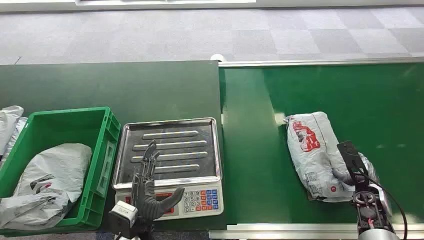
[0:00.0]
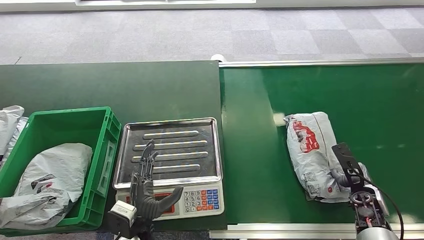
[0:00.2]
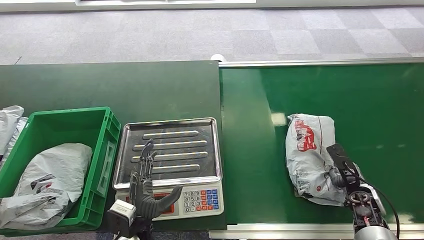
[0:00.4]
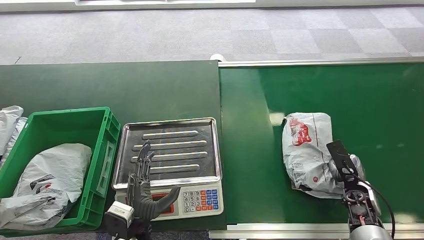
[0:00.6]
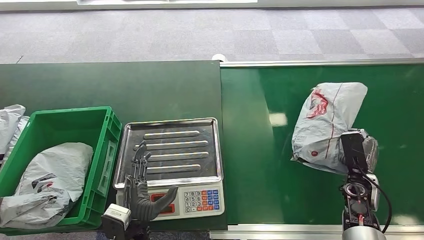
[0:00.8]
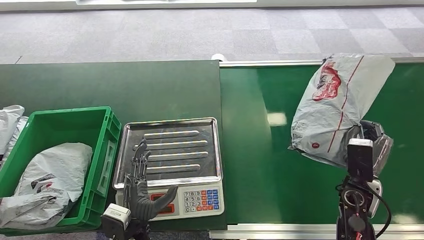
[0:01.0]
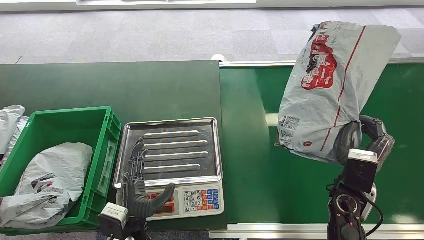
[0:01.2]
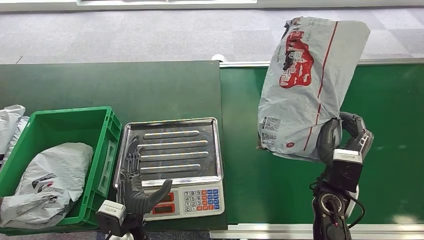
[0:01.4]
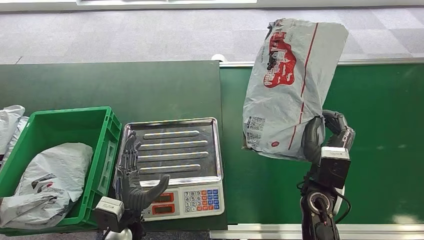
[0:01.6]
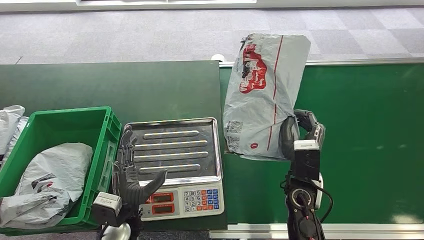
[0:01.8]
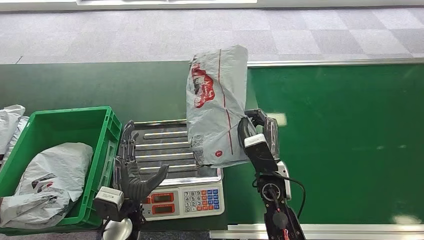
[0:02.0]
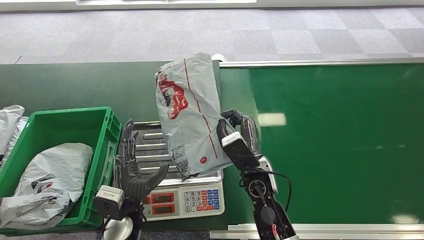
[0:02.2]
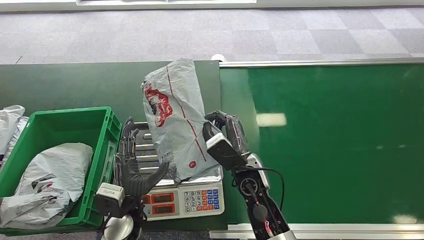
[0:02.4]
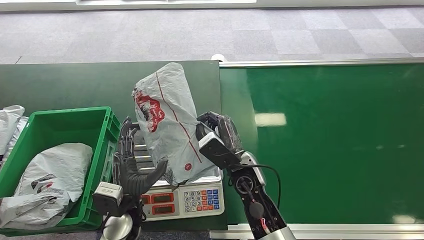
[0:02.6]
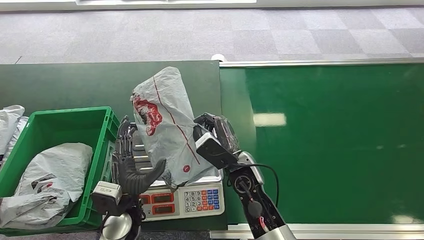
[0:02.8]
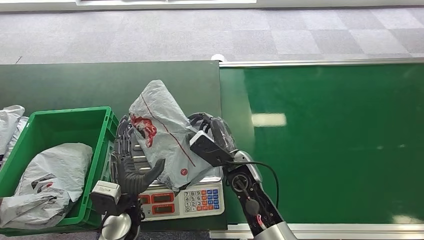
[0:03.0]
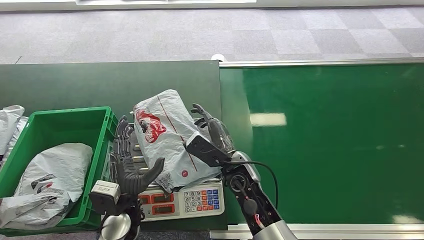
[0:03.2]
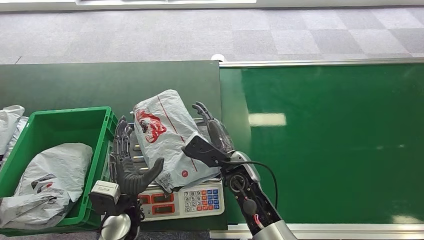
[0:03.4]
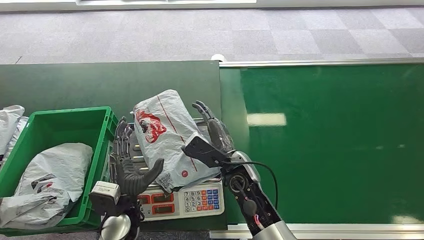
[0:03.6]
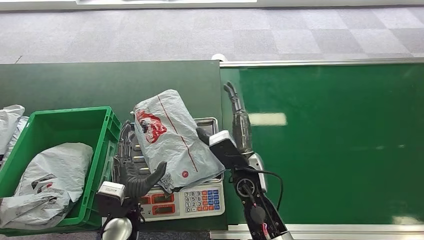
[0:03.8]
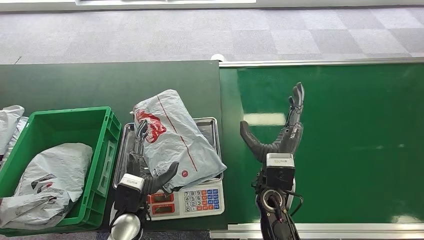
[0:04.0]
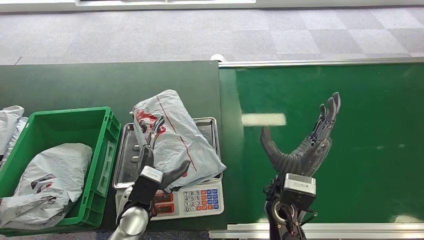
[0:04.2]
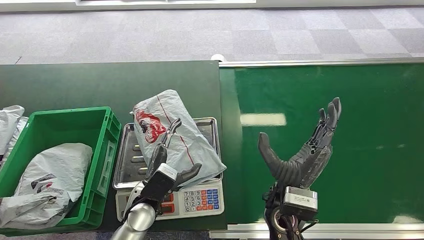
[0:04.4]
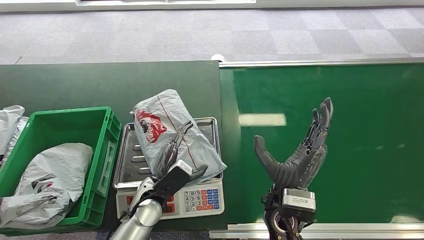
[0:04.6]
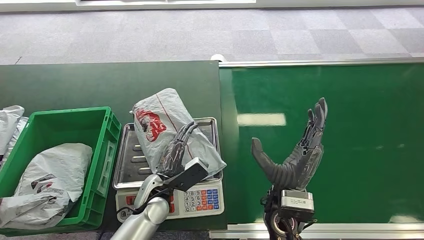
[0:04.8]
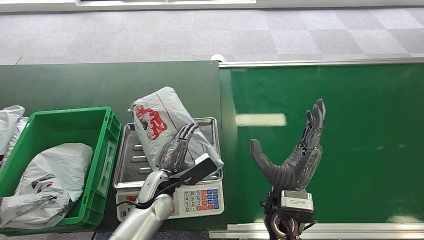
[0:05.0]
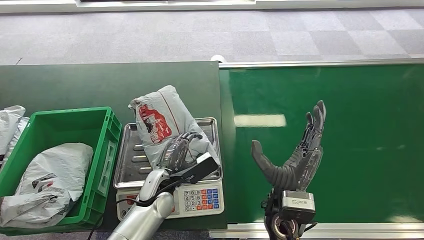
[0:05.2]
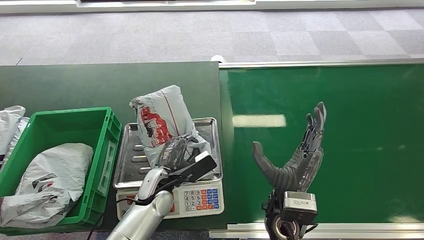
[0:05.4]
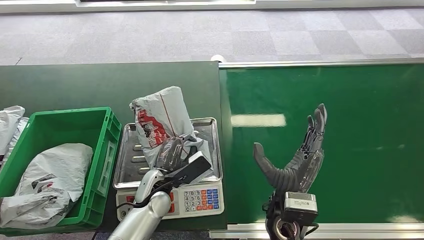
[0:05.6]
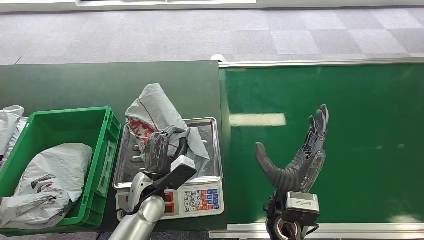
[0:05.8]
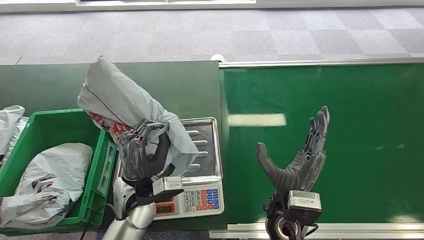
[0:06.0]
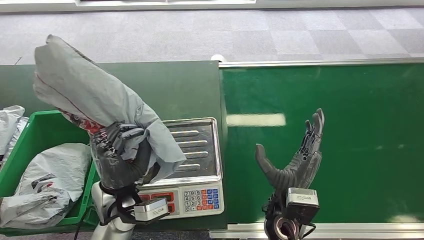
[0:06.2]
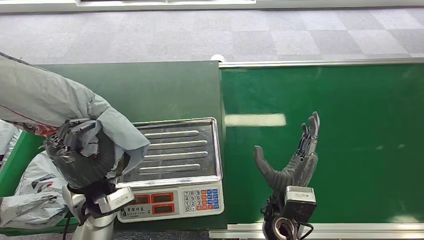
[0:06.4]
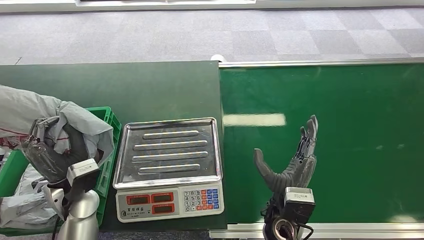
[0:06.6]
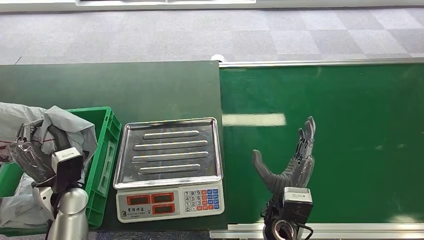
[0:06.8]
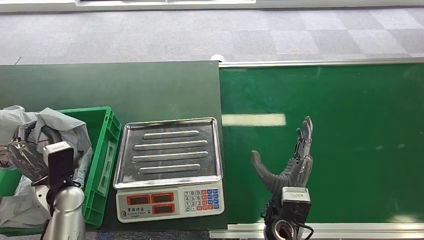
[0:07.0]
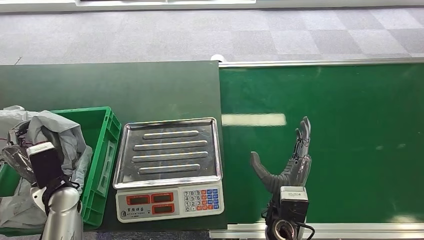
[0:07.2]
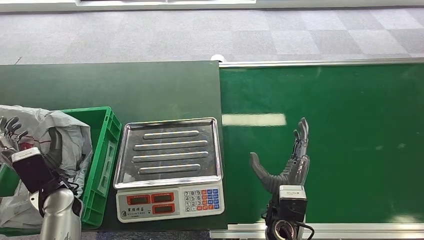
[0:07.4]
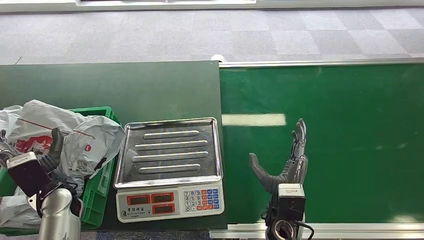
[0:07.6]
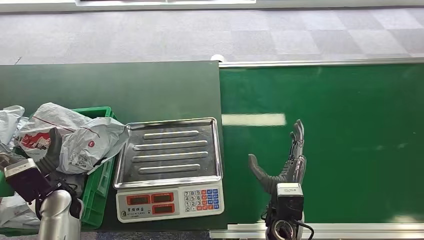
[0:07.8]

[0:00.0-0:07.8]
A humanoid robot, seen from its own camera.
Step, 0:00.0 to 0:01.0: Pick up the package from the conveyor belt.
Step, 0:02.0 to 0:04.0: Place the package onto the inbound machine.
Step, 0:05.4 to 0:06.2: Pick up the package from the inbound machine.
Step, 0:06.8 to 0:07.6: Place the package into the parcel locker.
0:03.2 to 0:04.6: The left hand changes place by about 5 cm. Meanwhile the right hand heads backward and to the right, covering about 10 cm.
0:04.6 to 0:06.2: The left hand shifts some 10 cm upward.

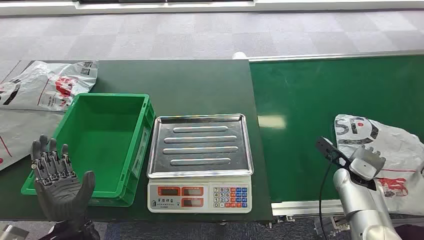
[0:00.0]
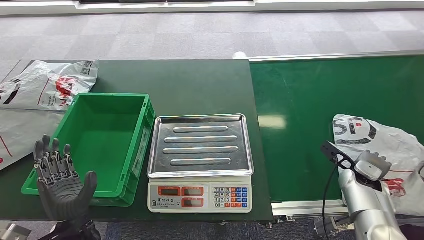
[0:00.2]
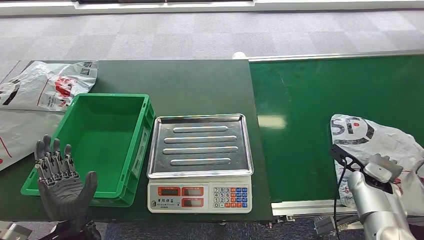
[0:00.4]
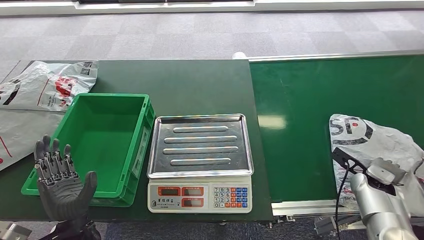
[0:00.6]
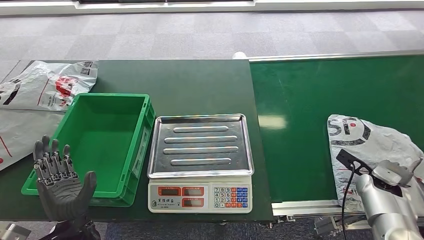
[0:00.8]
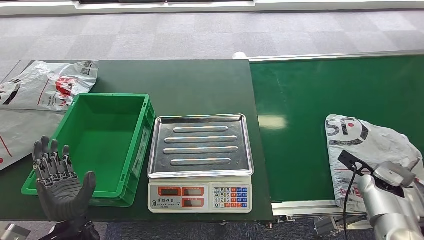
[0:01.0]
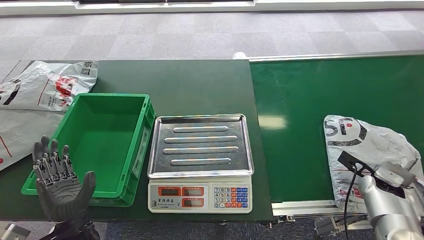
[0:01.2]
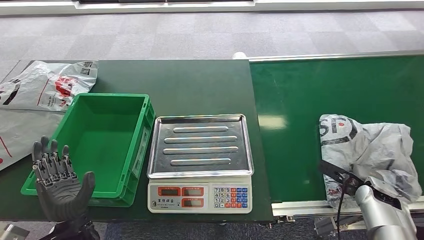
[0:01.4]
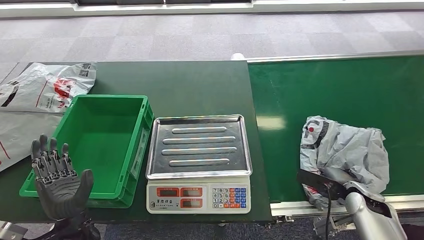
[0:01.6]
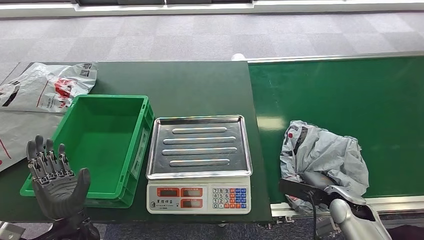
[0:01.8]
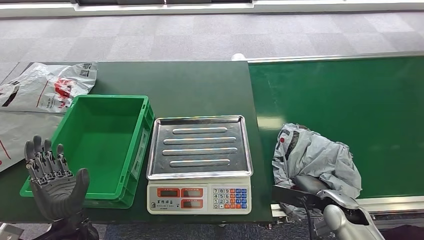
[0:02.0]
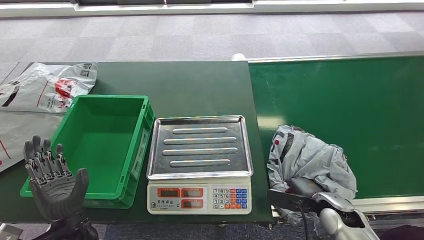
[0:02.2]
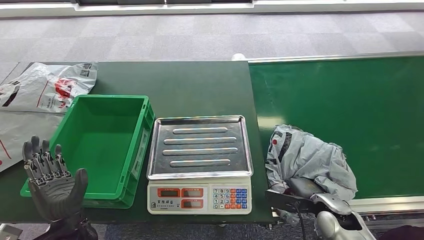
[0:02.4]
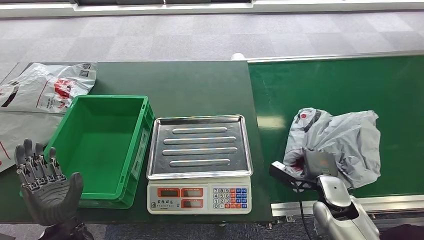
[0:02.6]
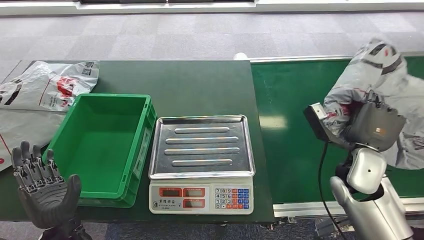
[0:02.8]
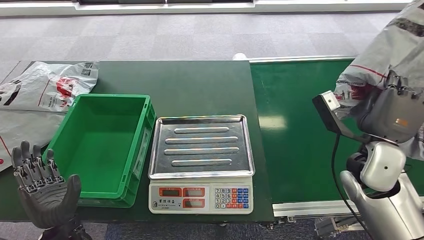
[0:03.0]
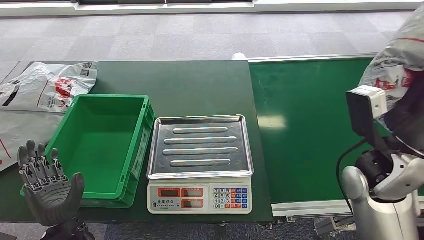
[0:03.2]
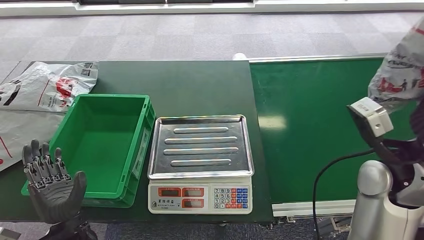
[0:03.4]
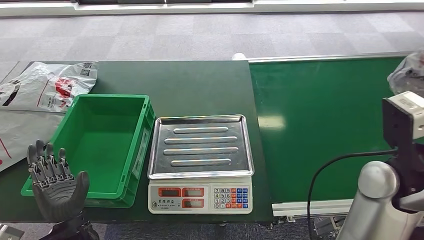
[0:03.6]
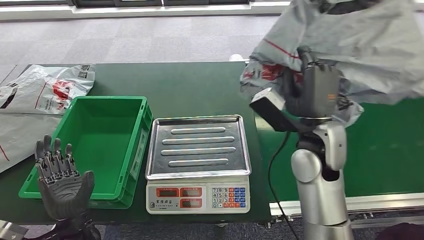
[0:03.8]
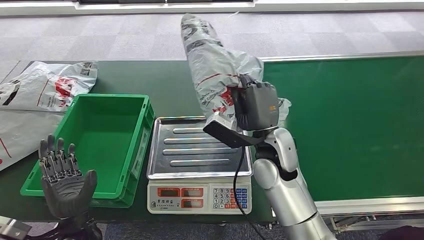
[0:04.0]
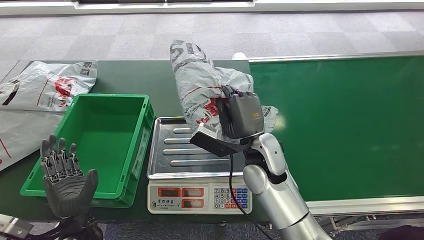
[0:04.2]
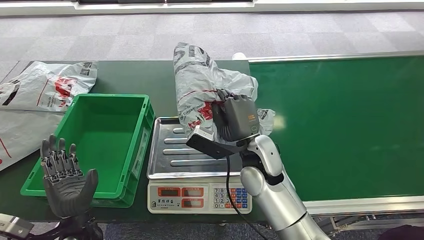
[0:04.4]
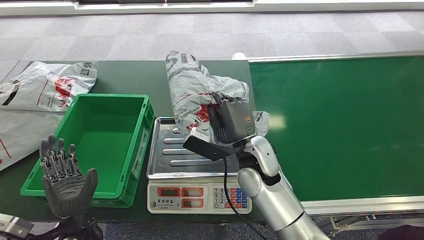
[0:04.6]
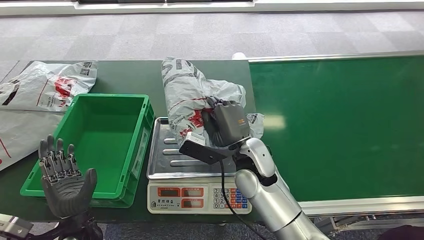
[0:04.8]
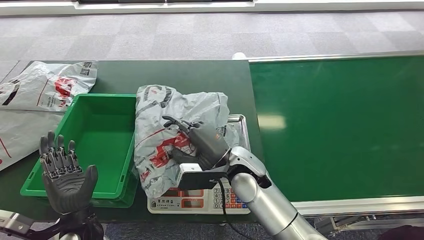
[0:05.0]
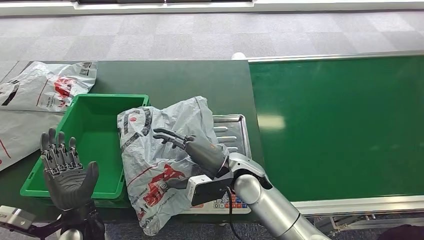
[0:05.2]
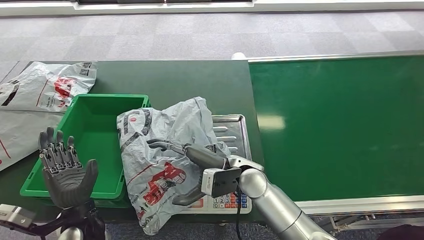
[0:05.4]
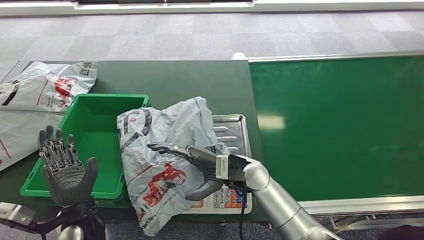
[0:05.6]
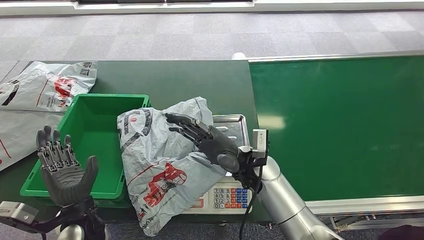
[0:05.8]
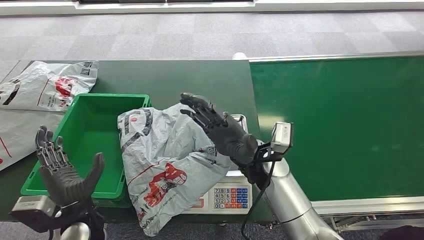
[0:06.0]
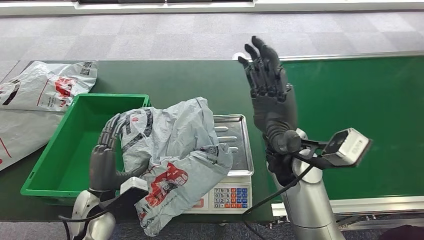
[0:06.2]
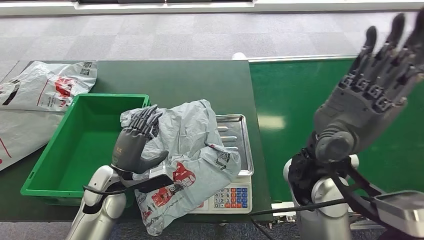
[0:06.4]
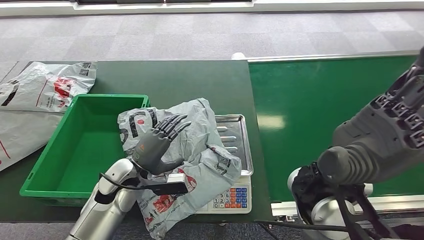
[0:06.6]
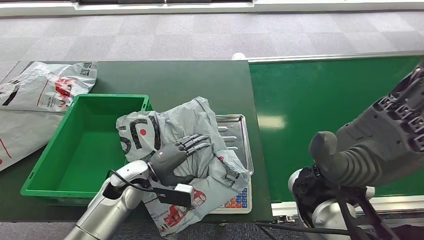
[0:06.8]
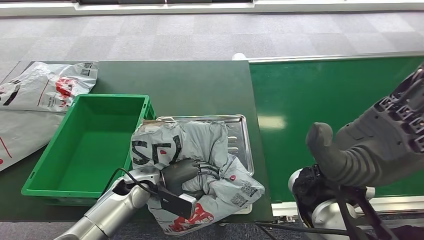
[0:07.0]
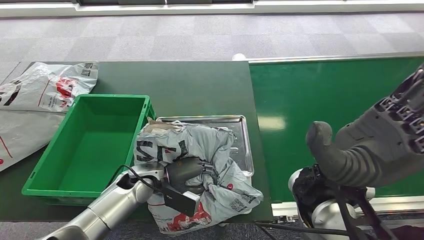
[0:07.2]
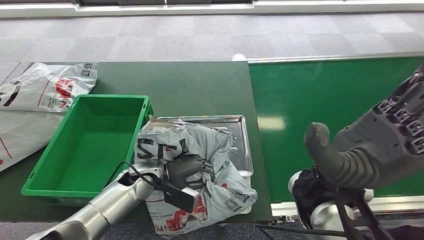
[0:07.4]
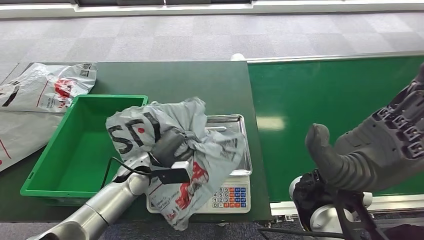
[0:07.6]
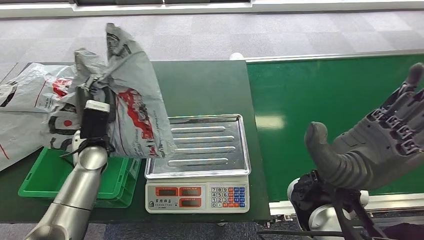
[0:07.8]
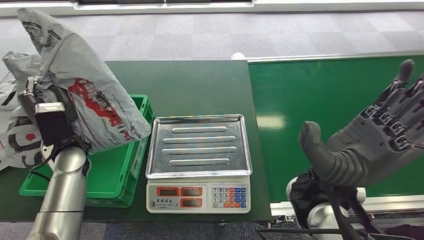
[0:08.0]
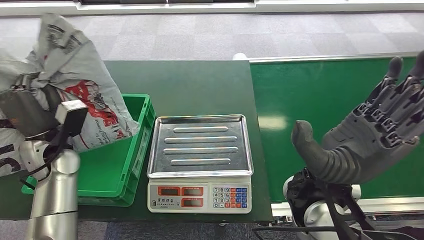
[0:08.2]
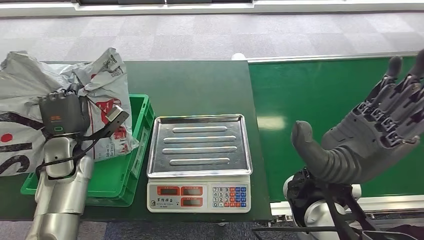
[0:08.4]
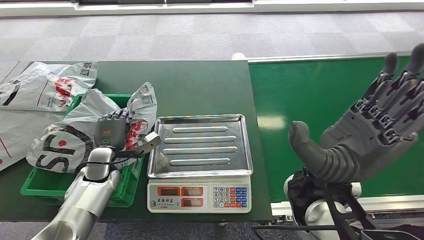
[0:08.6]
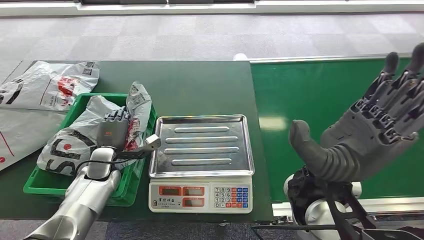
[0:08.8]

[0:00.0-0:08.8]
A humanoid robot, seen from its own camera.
Step, 0:00.0 to 0:02.8: Pick up the package from the conveyor belt.
Step, 0:03.0 to 0:06.0: Place the package onto the inbound machine.
Step, 0:06.4 to 0:08.2: Pick up the package from the inbound machine.
Step, 0:08.4 to 0:08.6: Place the package into the parcel locker.
